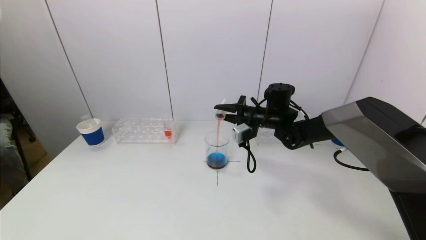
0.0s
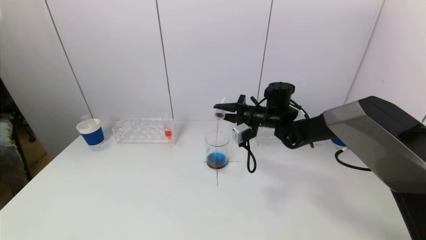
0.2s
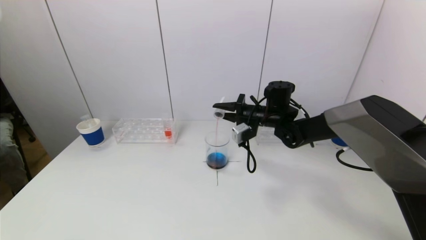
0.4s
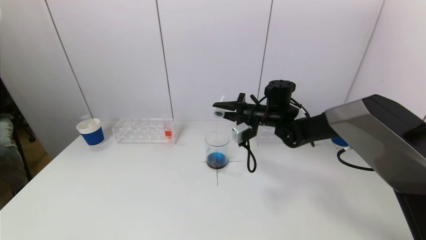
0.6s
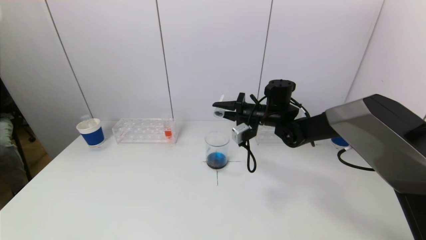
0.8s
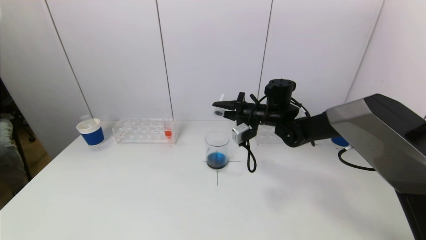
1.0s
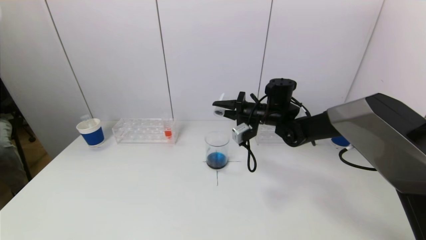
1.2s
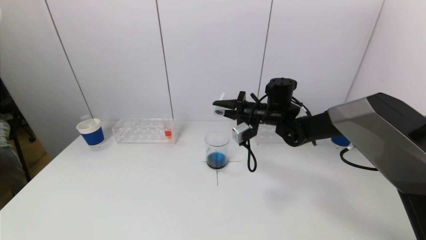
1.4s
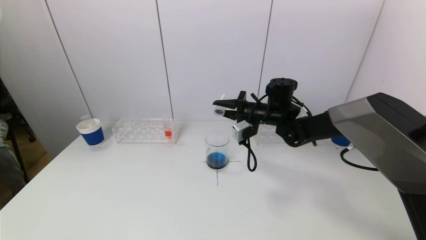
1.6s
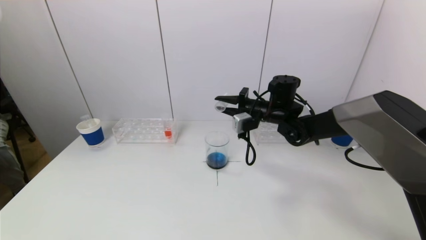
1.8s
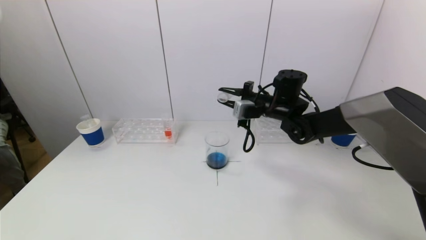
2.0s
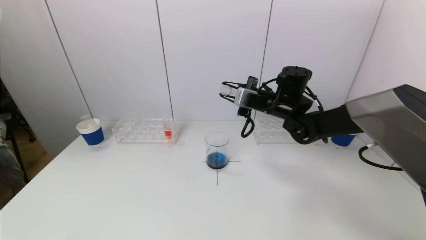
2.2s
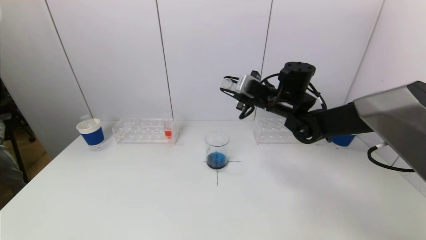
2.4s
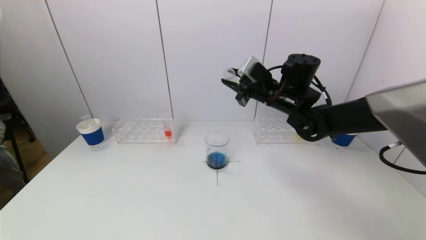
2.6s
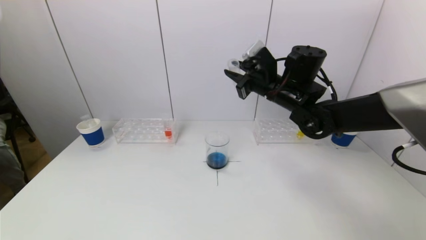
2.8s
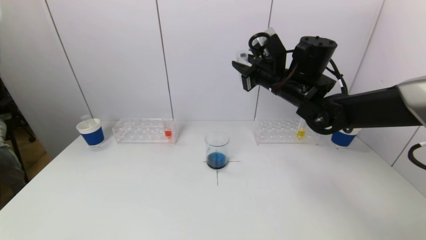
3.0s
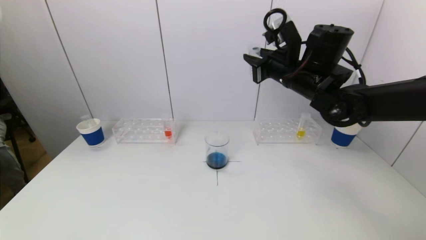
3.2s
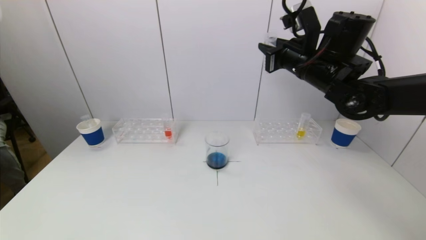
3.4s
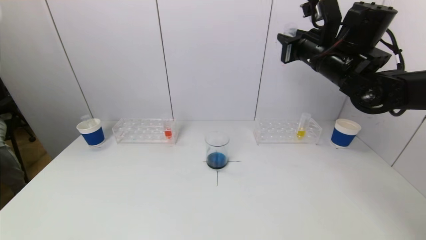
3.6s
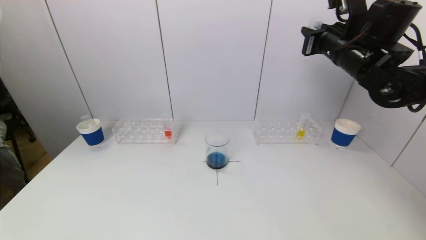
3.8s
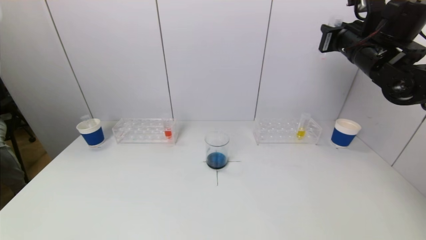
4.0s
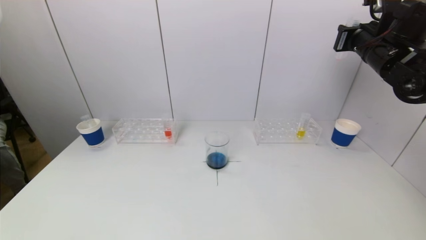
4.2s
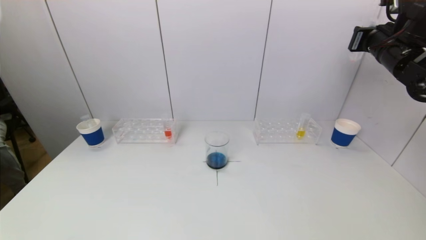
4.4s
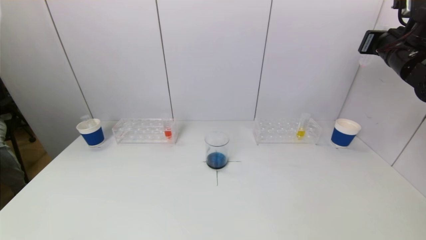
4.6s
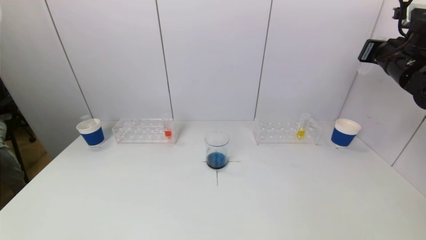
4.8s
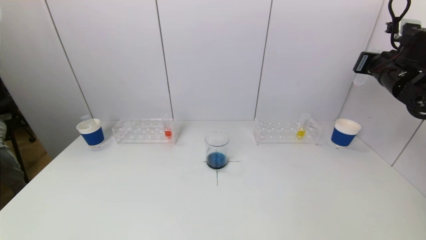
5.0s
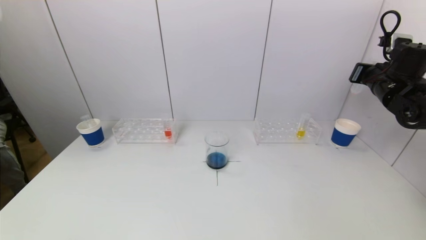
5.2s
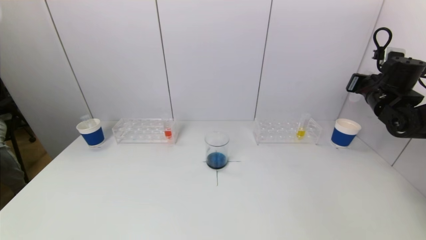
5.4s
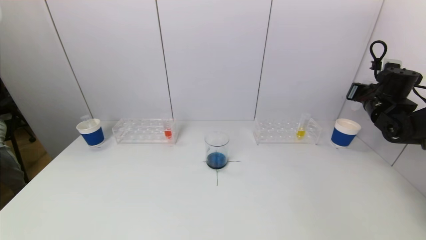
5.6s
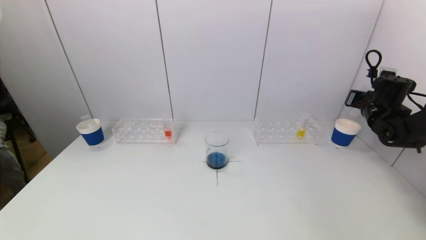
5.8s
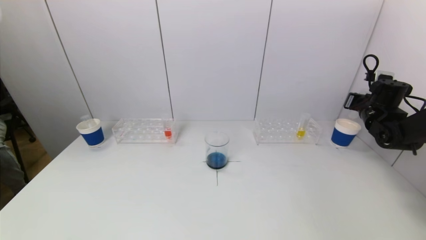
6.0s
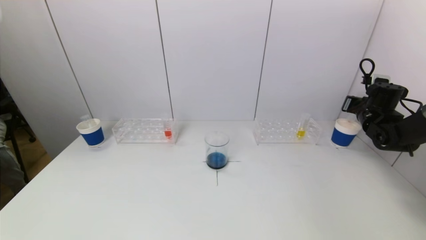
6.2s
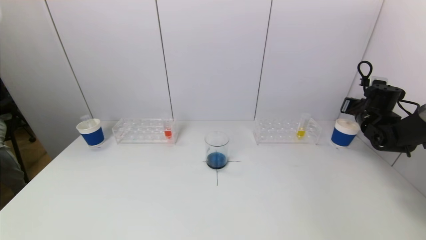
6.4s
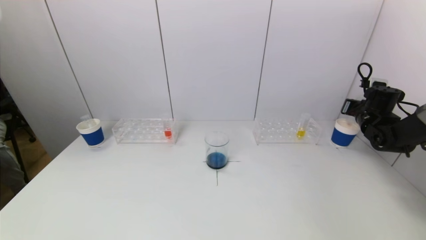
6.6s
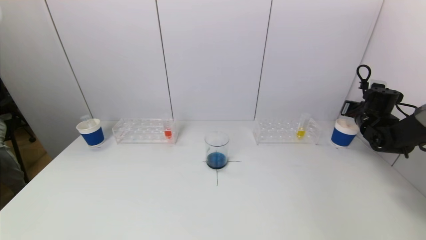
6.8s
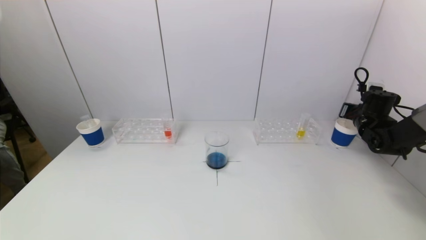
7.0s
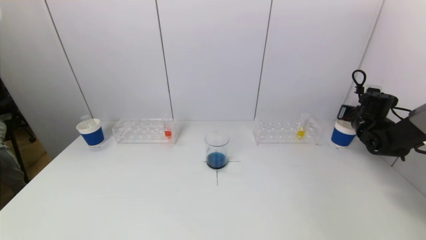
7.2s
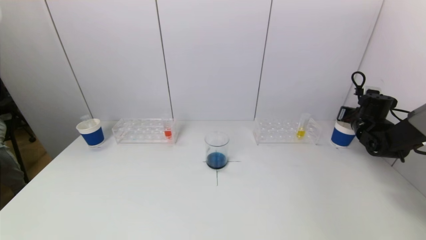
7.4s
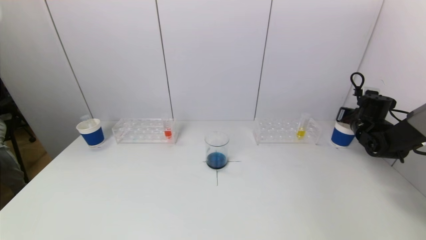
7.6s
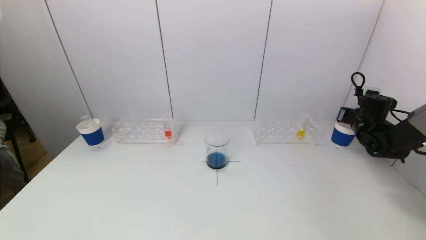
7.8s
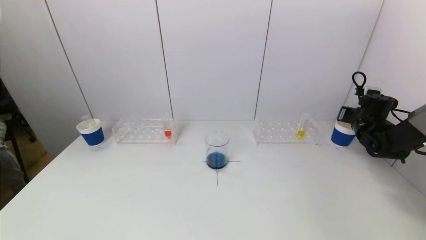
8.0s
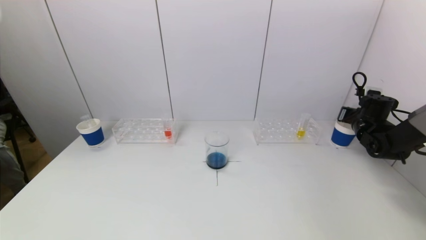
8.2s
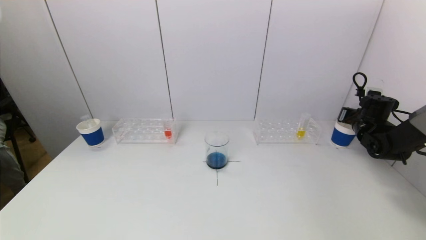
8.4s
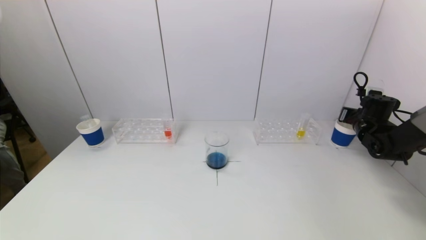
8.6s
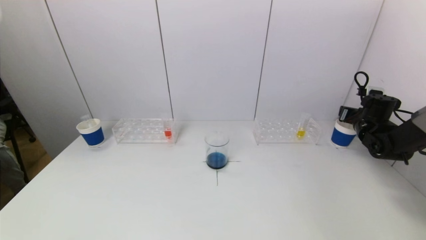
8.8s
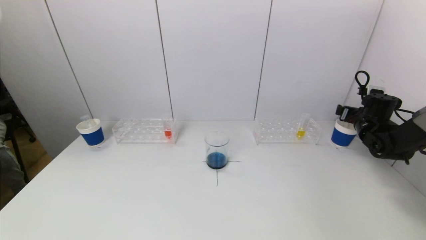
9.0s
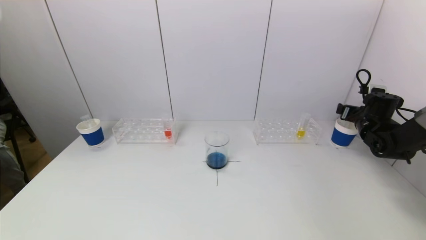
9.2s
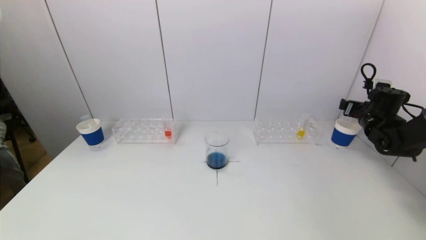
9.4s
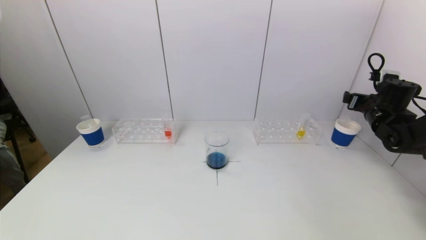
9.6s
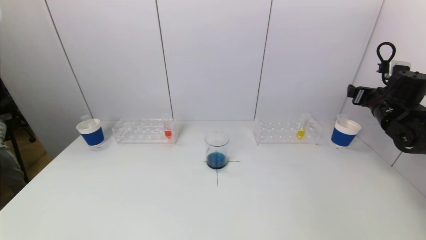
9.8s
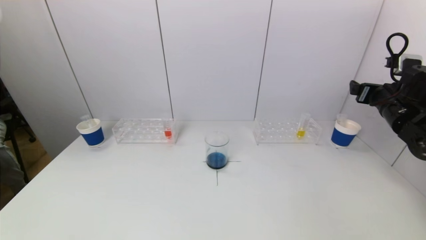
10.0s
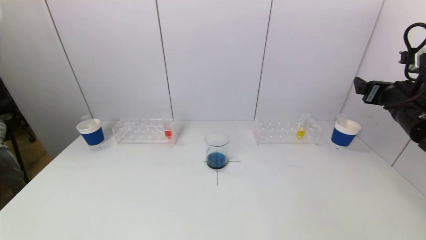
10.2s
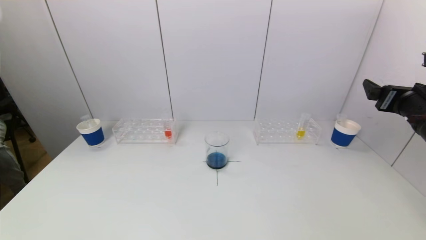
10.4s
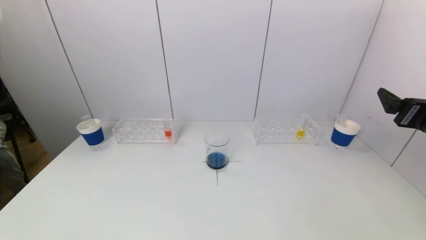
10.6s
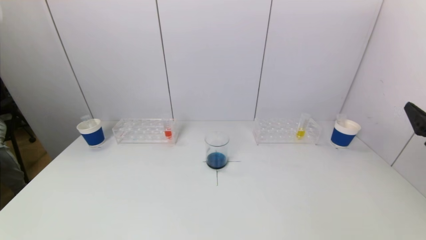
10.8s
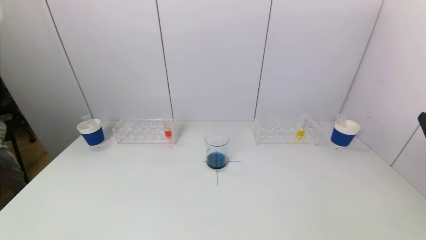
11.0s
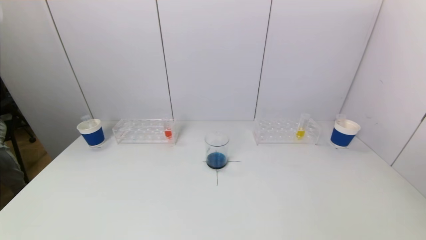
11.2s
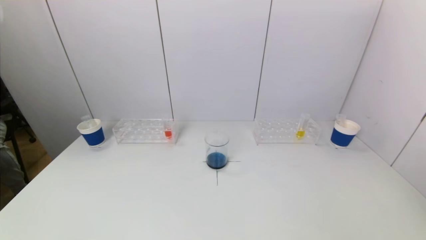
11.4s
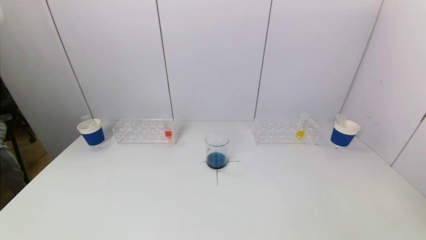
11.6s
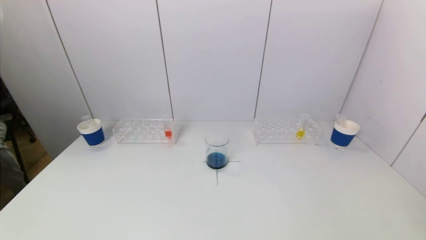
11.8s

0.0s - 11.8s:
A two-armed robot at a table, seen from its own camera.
Task of the whole recording: pick up a test tube with pigment on left test tube rack and a test tube with pigment on right test tube rack by grippers and pour them into the beaker.
Step, 1.6s - 9.0s: Place the test tube into the paper cup with the right gripper.
0.0s - 1.4s: The grippers make only small movements.
1.4s - 3.0s: The right gripper moves upward and backward, roughly 10 cm.
3.0s - 4.4s: The right gripper goes about 20 cm to the right.
4.4s - 6.0s: The right gripper heads downward and to the right, covering some 20 cm.
6.0s - 7.4s: The right gripper changes place by about 5 cm.
7.4s - 8.8s: The right gripper opens its fingers.
8.8s - 10.4s: The right gripper travels backward, upward and to the left by approximately 25 cm.
10.4s - 11.8s: The right gripper goes some 25 cm backward.

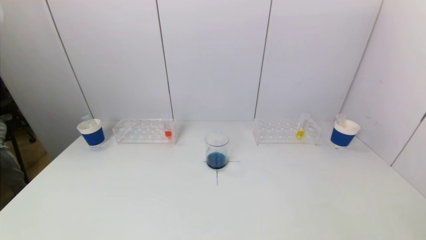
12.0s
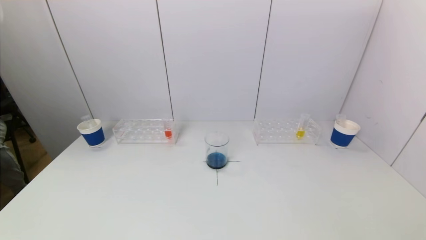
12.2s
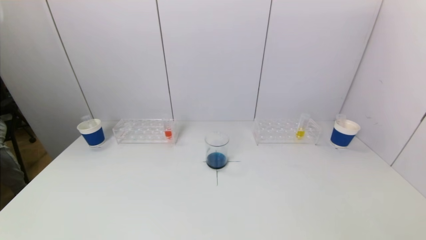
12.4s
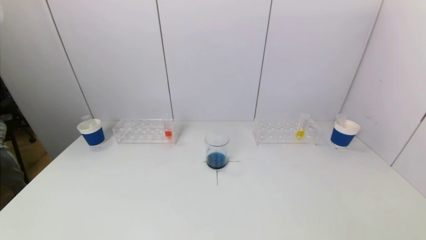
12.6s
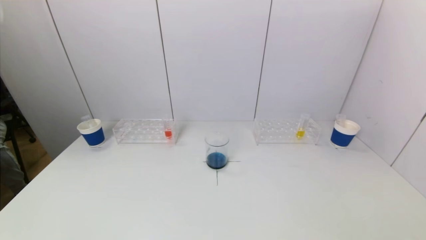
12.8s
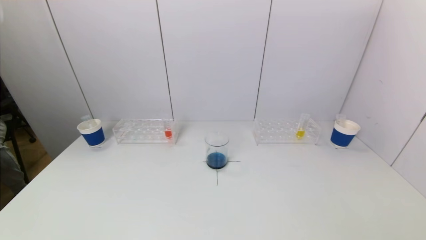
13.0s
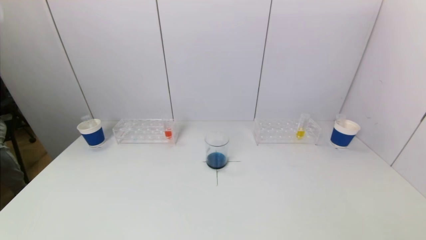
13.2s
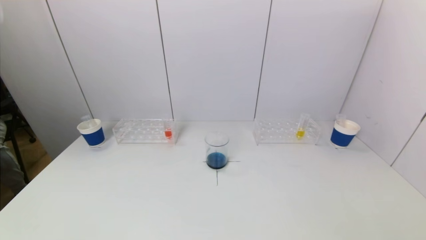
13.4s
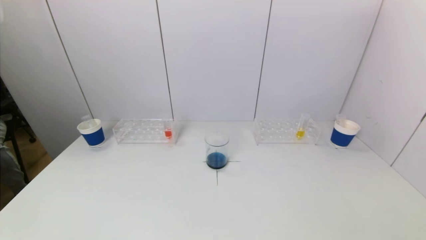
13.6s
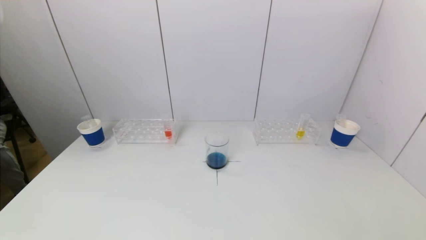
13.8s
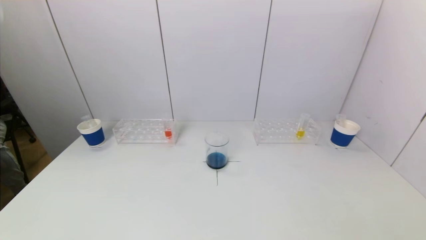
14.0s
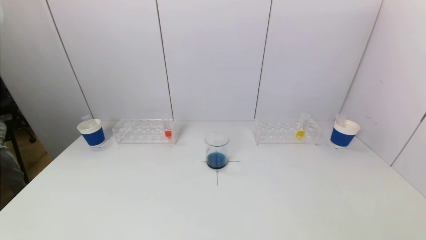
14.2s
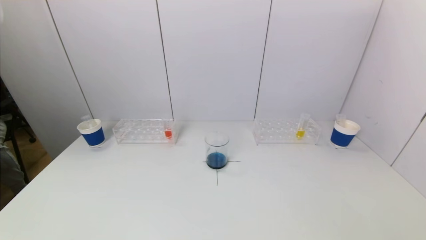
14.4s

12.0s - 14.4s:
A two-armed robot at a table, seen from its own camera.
Task of the whole recording: pick up a test tube with pigment on left test tube rack and a test tube with pigment on right test tube rack by grippers and pour them into the beaker.
13.2s - 14.4s: Both grippers stay put.
